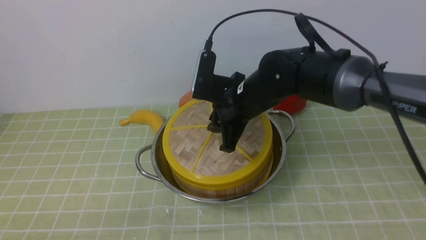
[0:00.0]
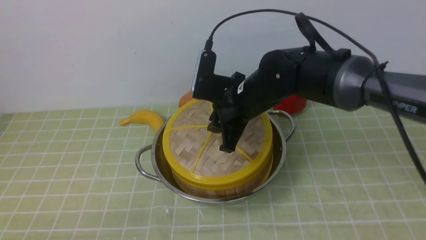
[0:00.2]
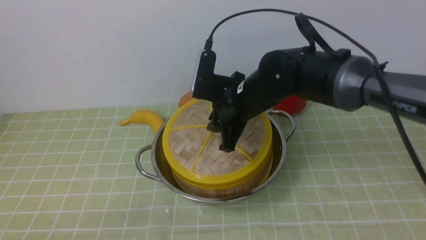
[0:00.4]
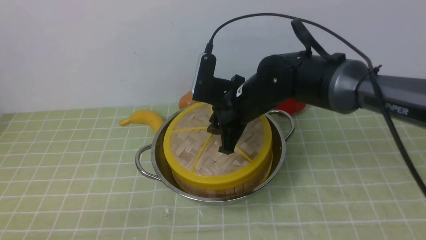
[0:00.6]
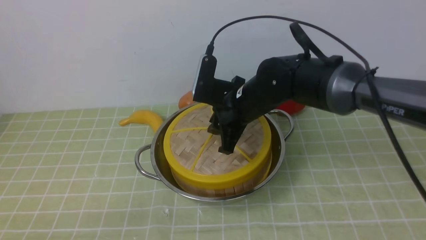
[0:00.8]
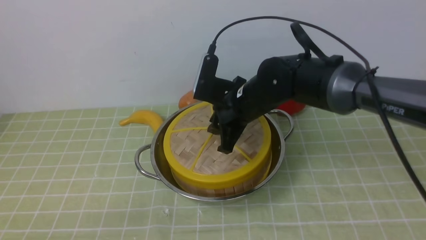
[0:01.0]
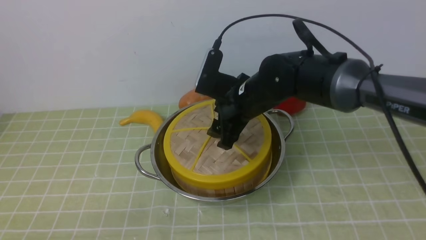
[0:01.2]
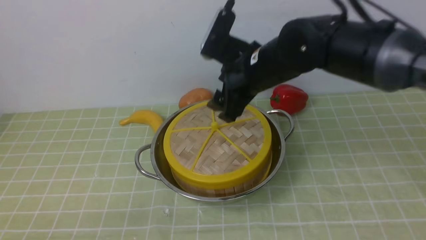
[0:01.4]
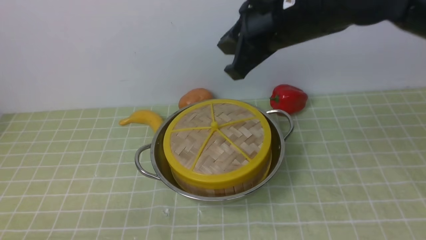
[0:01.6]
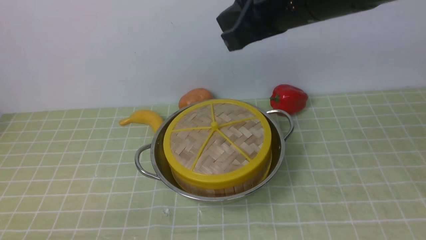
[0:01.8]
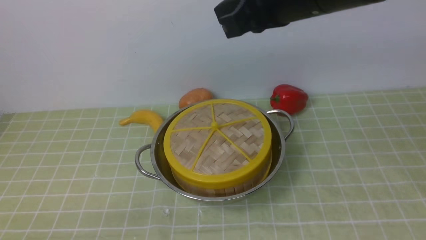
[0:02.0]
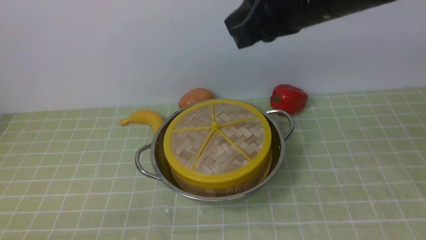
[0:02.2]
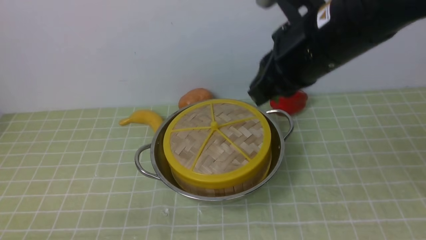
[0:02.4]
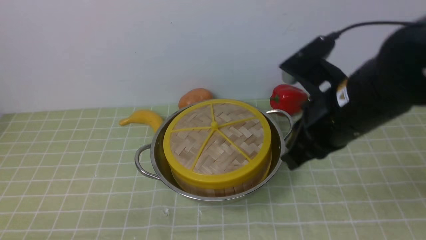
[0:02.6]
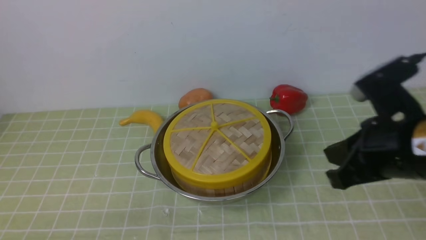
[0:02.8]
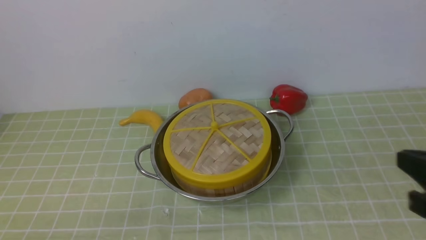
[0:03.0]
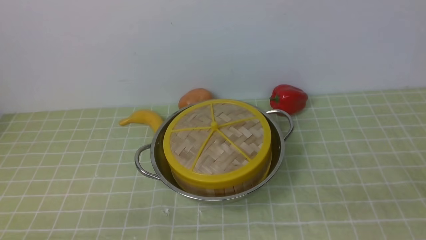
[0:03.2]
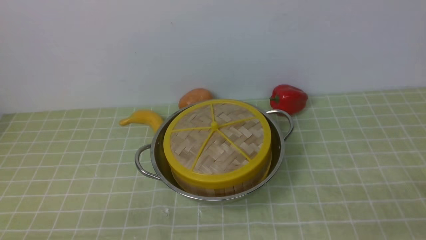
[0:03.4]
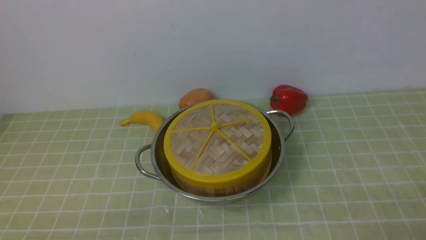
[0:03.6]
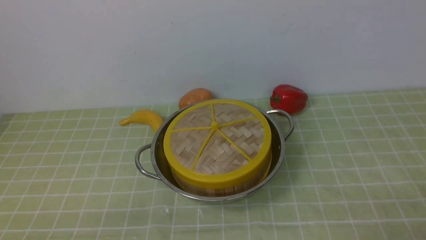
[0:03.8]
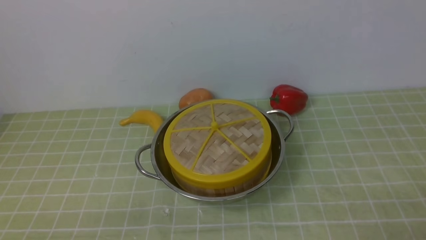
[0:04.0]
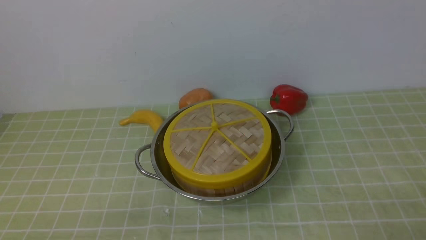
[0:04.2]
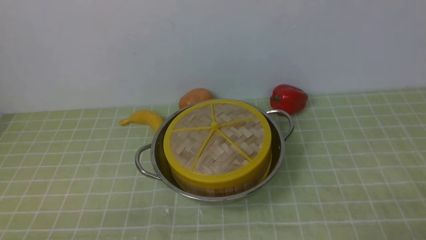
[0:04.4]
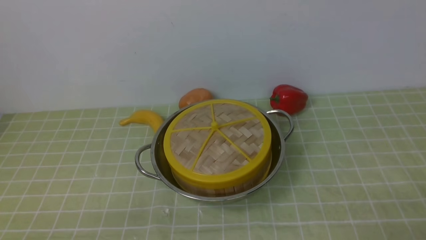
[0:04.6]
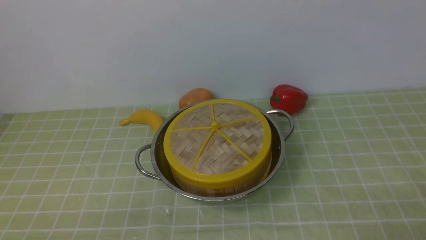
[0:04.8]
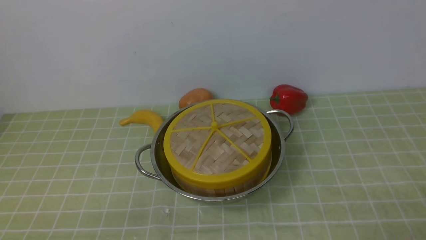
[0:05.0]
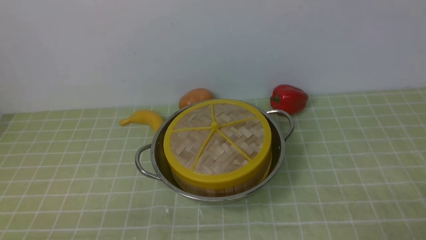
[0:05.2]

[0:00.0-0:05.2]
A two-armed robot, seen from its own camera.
Task of the whole recording: place the steamer in the pot on the green tablecloth, and put the lid on the steamer.
0:00.0 to 0:01.8: The right gripper is displaced upward by some 15 cm, and closes up.
0:01.8 to 0:03.4: The right gripper goes approximately 35 cm backward, to the right and downward.
